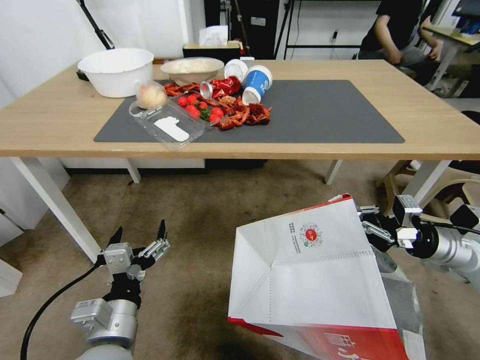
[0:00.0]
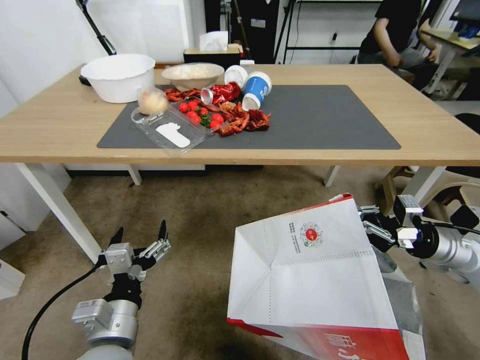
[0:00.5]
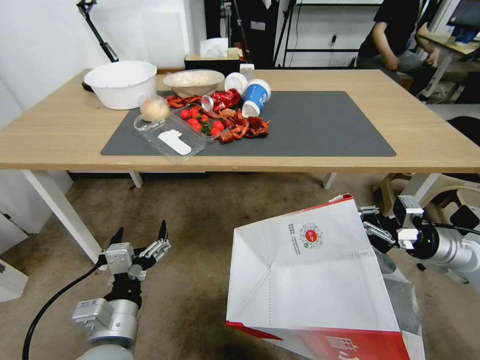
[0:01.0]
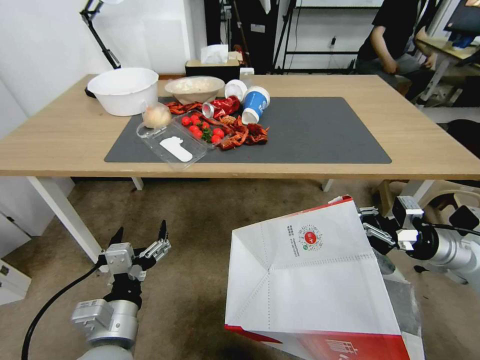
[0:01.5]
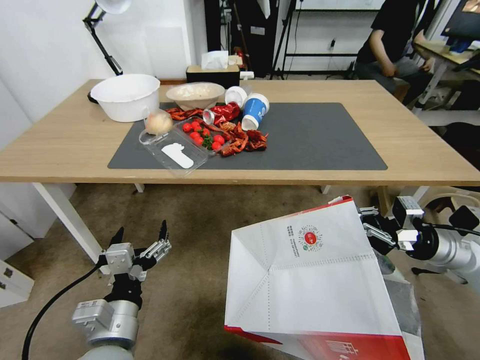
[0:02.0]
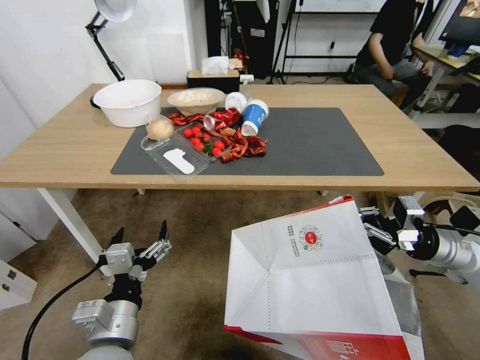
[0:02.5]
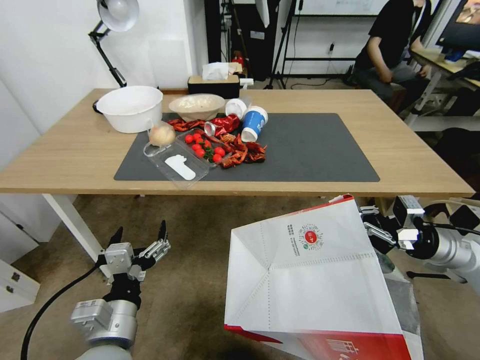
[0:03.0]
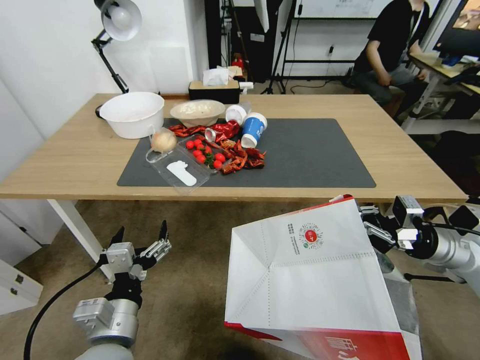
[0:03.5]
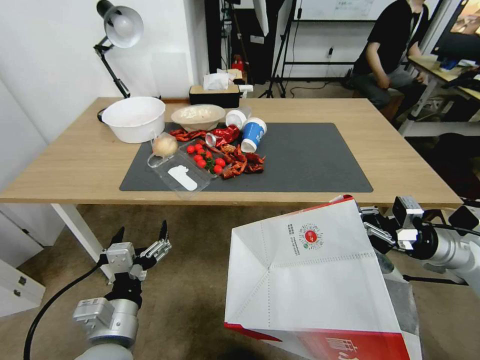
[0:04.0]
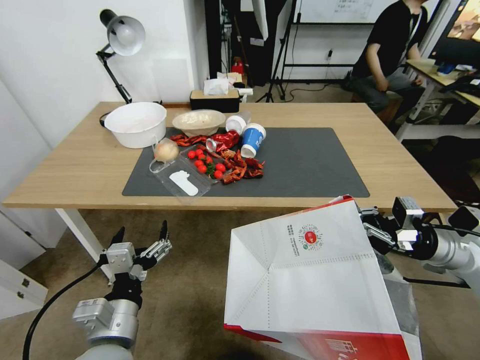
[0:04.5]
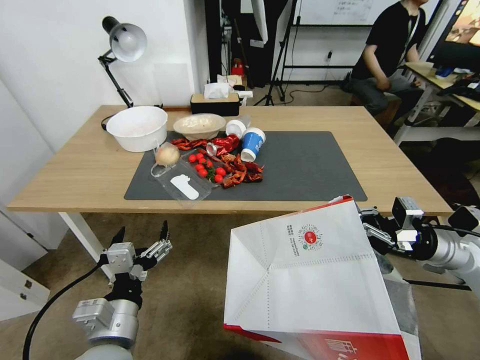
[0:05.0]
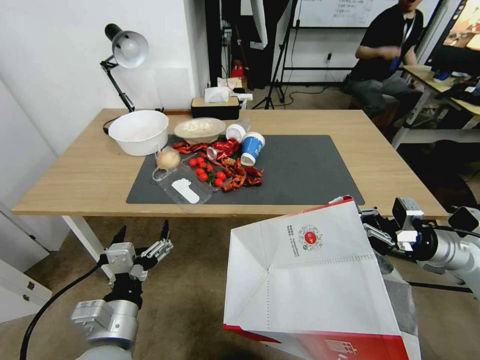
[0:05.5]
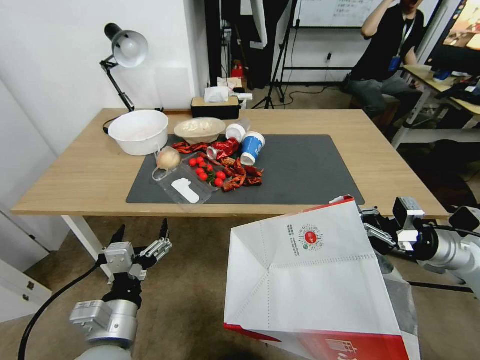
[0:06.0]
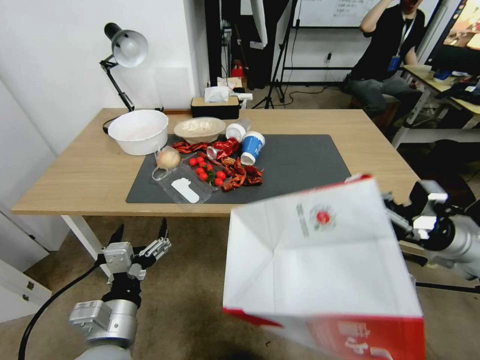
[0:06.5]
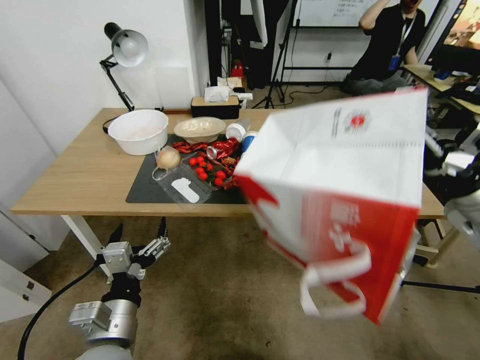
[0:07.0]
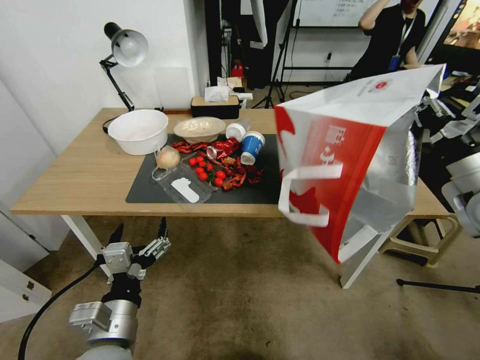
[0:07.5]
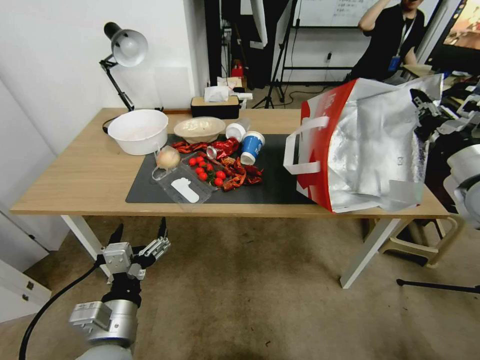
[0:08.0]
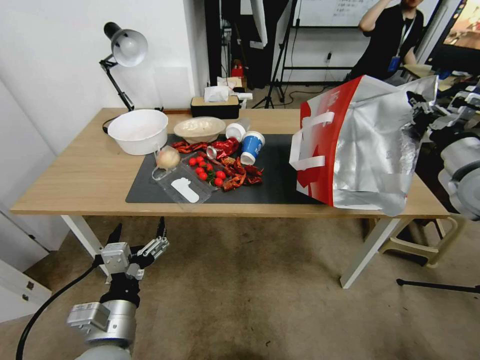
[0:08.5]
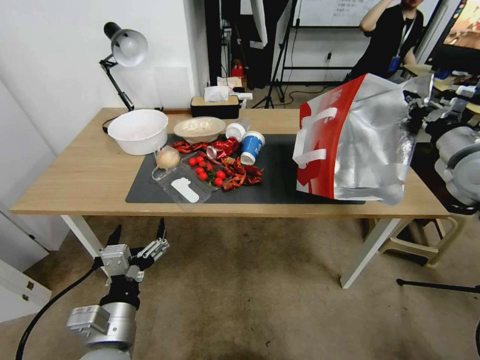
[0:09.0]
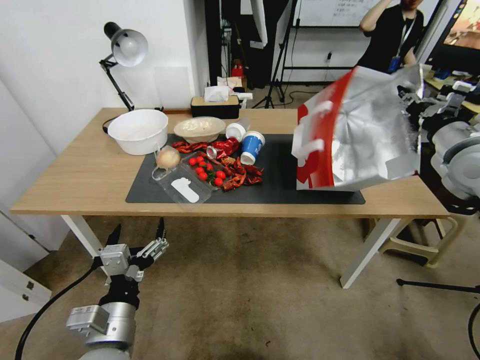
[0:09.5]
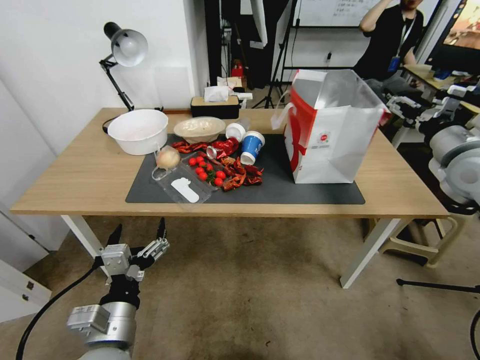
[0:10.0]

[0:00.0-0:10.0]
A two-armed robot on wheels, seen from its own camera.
Task of the whole recording: Pick up the food delivery bag from the floor and place it on the table.
0:06.0 to 0:08.0: The right gripper goes roughly 10 cm upward.
0:08.0 to 0:10.0: The right gripper goes approximately 5 cm forward, and opens.

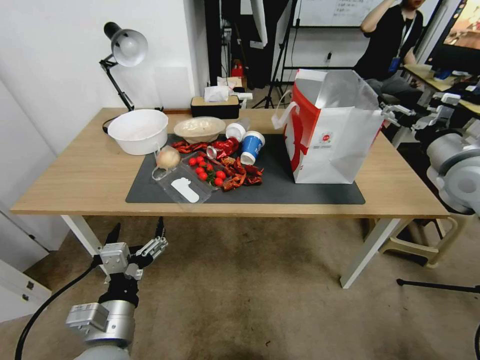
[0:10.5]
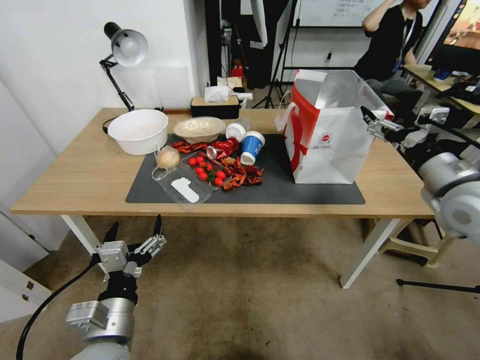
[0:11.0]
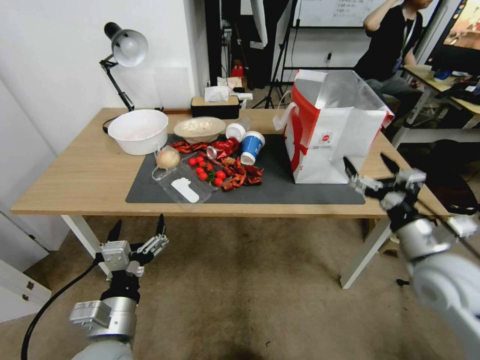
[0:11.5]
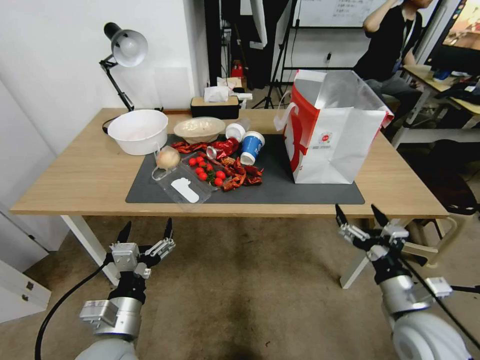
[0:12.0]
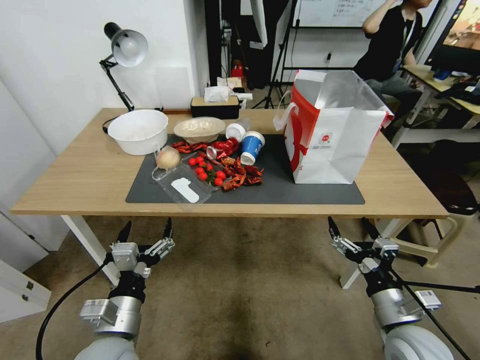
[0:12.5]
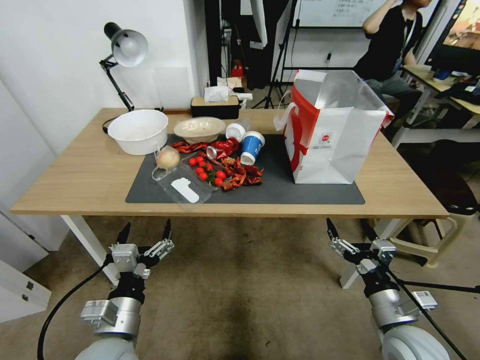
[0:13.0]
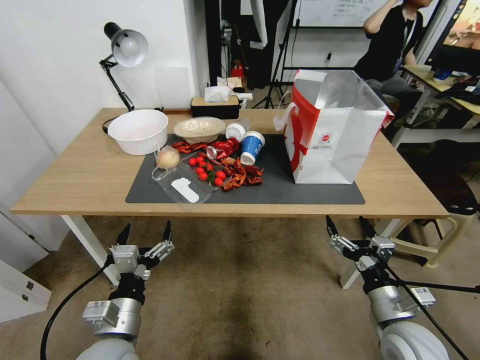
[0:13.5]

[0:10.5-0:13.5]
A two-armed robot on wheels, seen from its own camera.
Task of the whole recording: Pick up the food delivery bag from the floor and place it on the table.
0:10.5 to 0:12.0: The right gripper heads downward, backward and to the left, covering about 30 cm.
0:12.0 to 0:13.5: The grippers move only a little.
